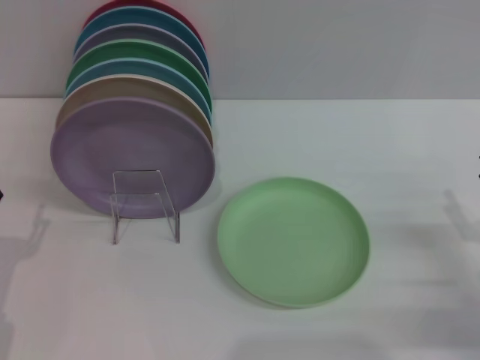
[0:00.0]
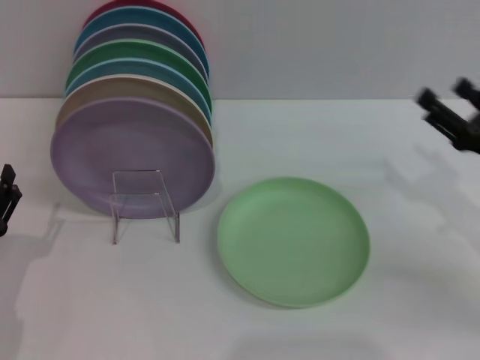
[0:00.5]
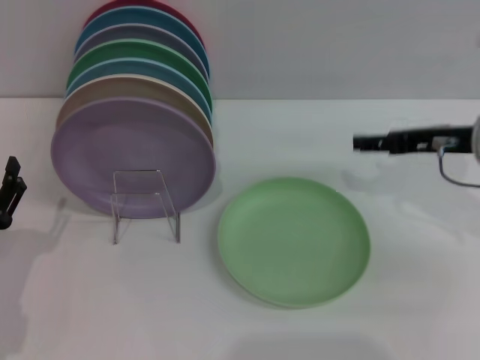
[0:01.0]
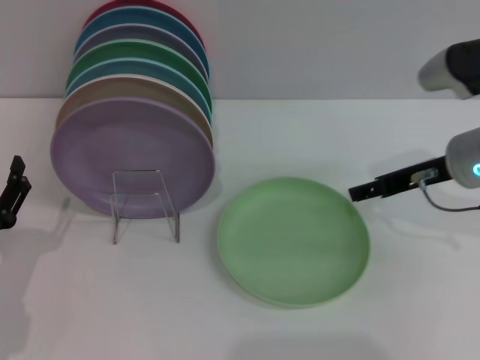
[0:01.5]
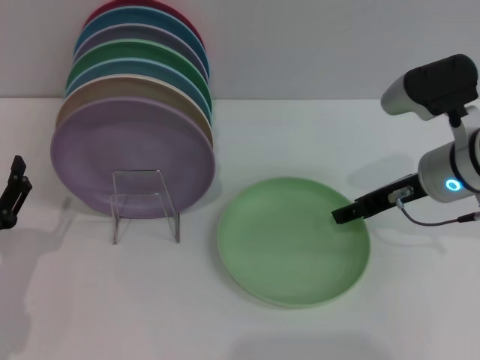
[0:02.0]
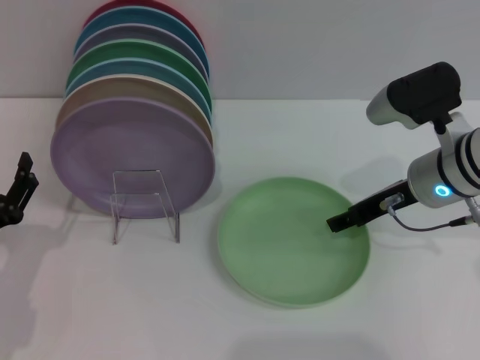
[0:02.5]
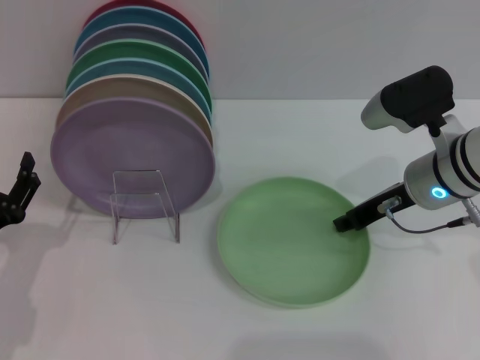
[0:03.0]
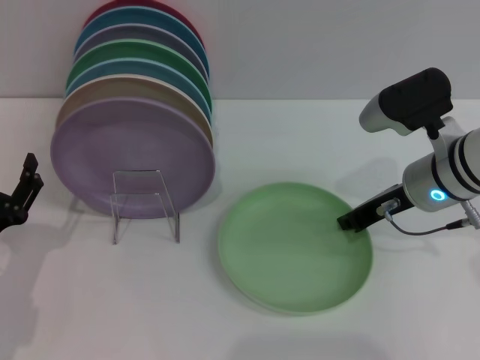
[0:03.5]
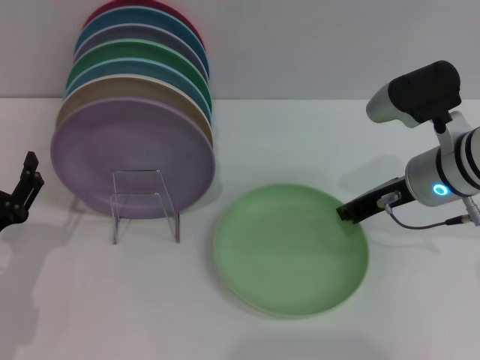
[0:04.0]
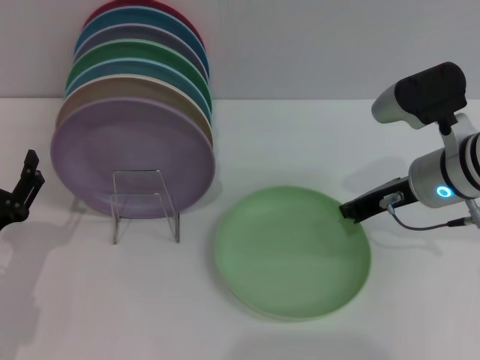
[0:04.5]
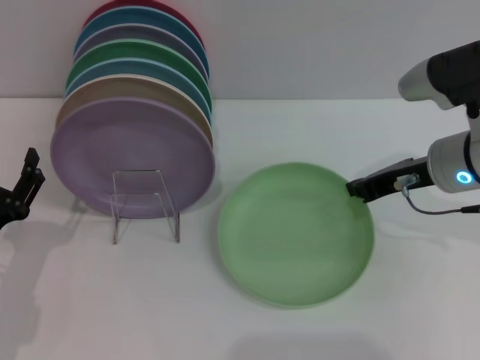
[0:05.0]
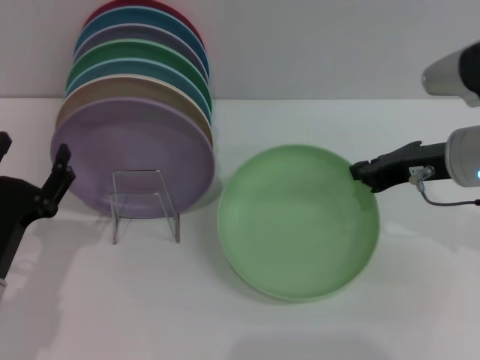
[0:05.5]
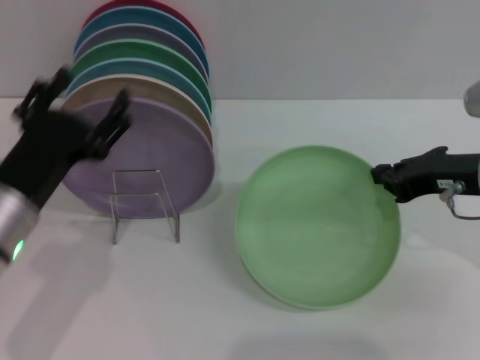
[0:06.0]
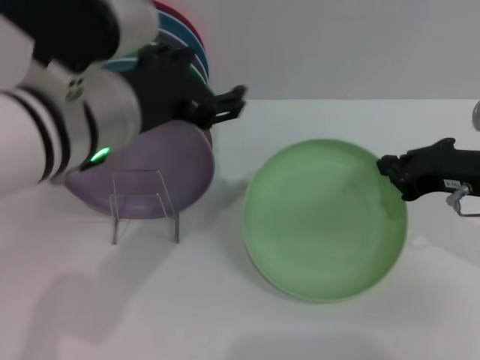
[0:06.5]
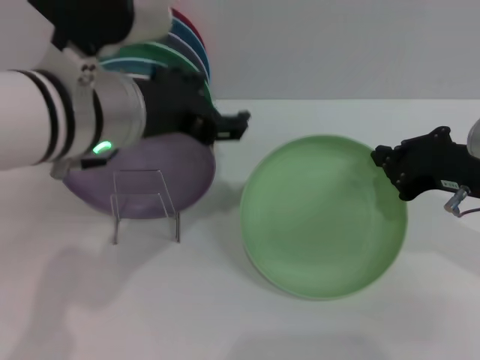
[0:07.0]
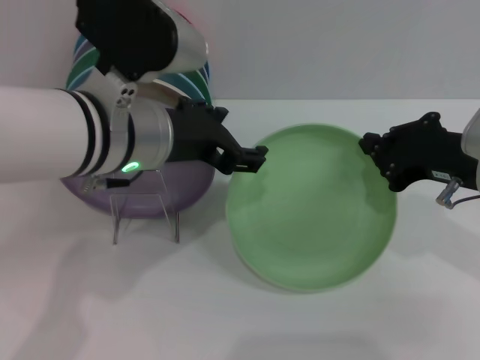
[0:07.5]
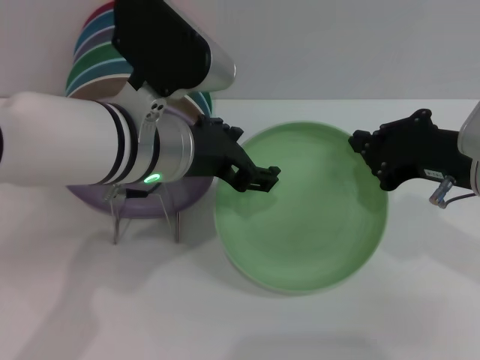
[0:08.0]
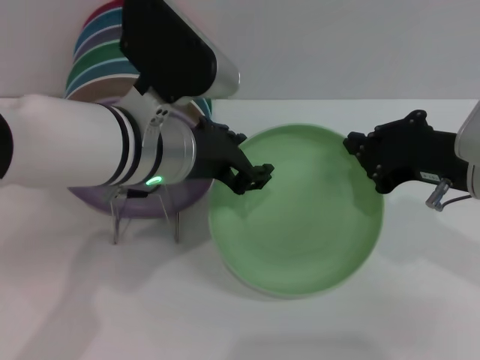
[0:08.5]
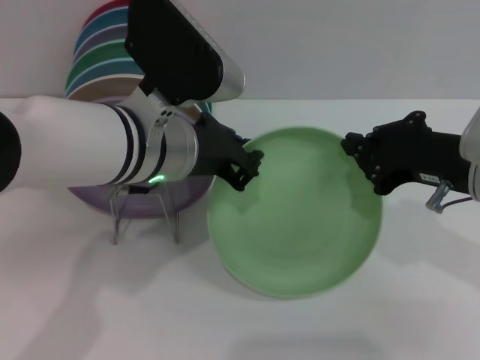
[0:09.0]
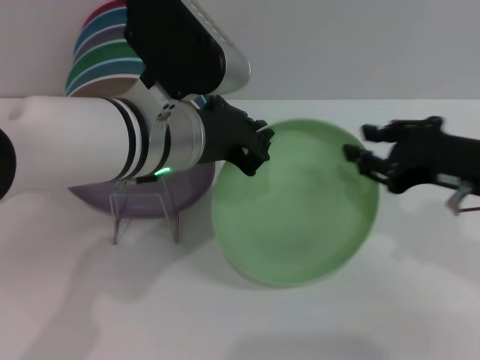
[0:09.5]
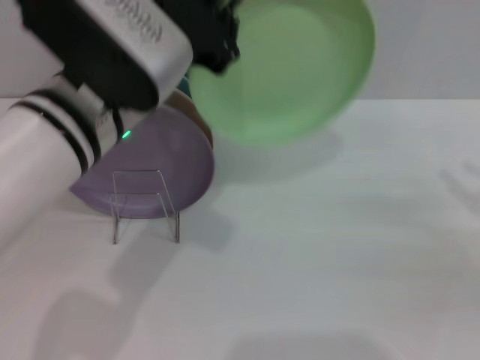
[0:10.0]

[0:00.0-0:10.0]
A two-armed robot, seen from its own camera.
Task of the whole recording: Grip the plate with one hand, pass it to the other, then set it on the shelf.
Step, 0:00.0 to 0:05.5: Pick up the plate with the right gripper.
Step, 0:06.0 to 0:09.5: Pass the plate from the right gripper to the left gripper.
0:00.0 to 0:02.0: The right gripper shifts about 20 cm forward, to the left and upward.
0:02.0 to 0:04.0: The right gripper closes its fingers.
0:04.0 to 0:06.0: The left gripper goes some 10 cm upward and to the right, while the right gripper travels backward by some 5 cm.
0:06.0 to 0:08.0: The left gripper moves to the right, upward and forward, approximately 15 cm.
0:08.0 to 0:10.0: The right gripper shifts some 15 cm to the right, and opens; the left gripper closes its fingers.

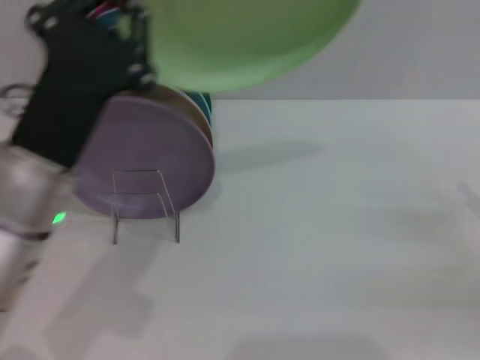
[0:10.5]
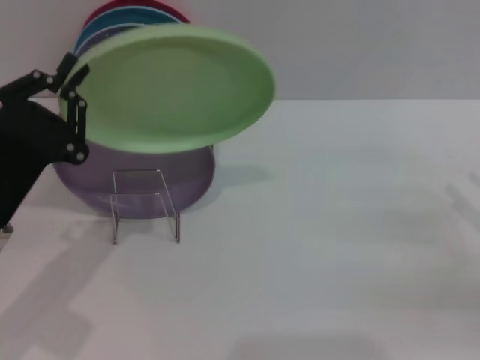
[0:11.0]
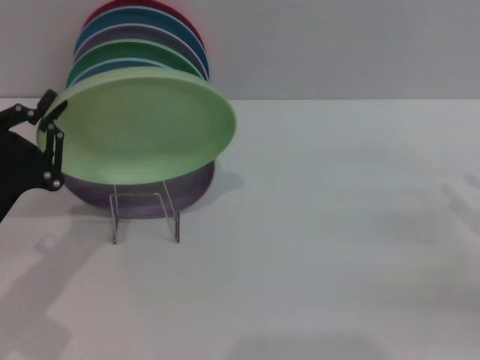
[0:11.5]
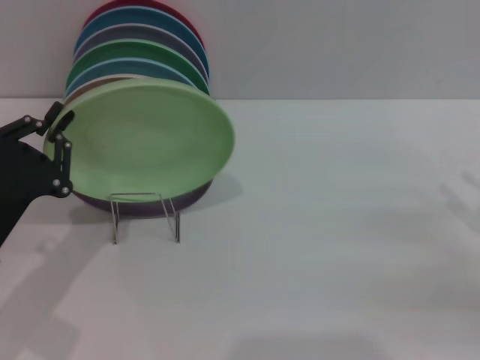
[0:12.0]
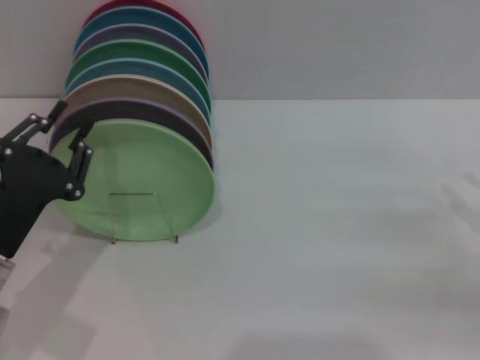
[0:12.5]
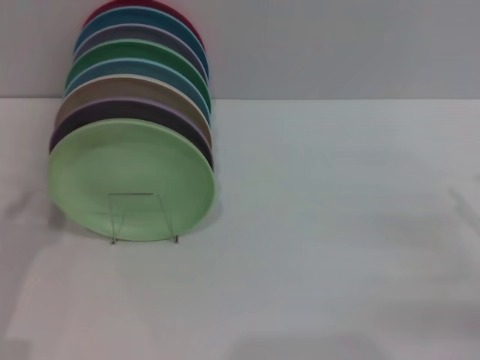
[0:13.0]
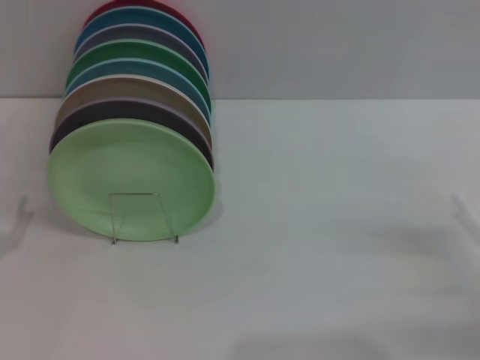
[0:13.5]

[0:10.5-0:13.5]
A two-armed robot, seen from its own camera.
Task of the whole recording: Grip the plate with one hand, pass it to the other, then set it on the shelf.
Step, 0:10.5 to 0:12.0: Place the plate on the shelf with the left gripper.
0:10.5 to 0:12.0: The left gripper shifts roughly 15 cm to the left and downward.
0:12.0 to 0:13.5: The right gripper ends up about 5 cm from where it was. Meanwhile the left gripper moves to the left, approximately 5 cm, and opens its fingers.
